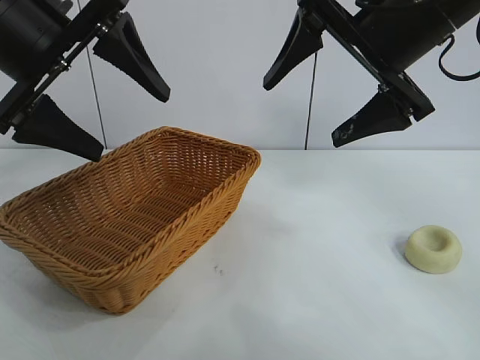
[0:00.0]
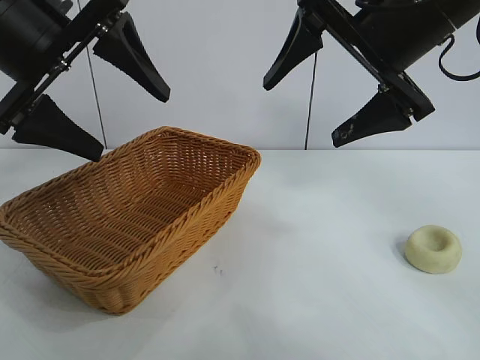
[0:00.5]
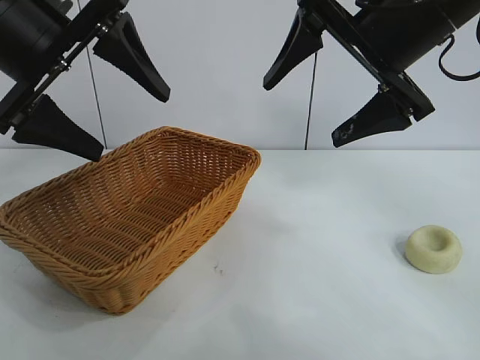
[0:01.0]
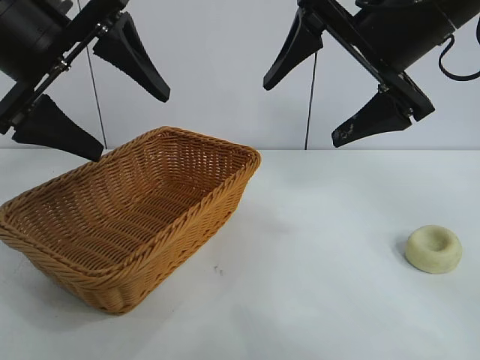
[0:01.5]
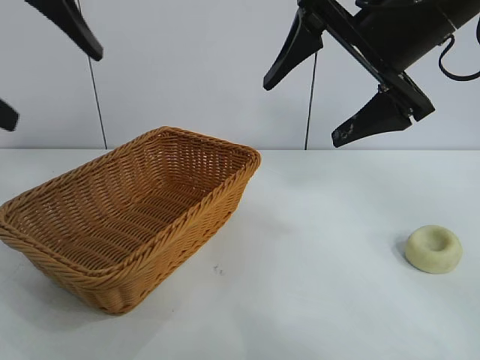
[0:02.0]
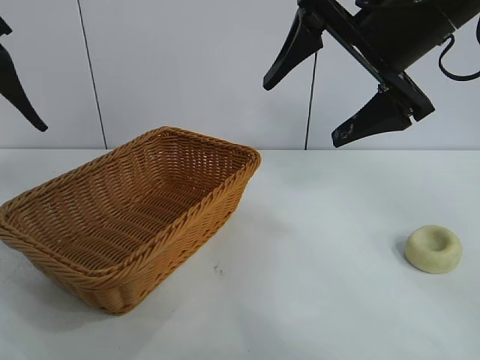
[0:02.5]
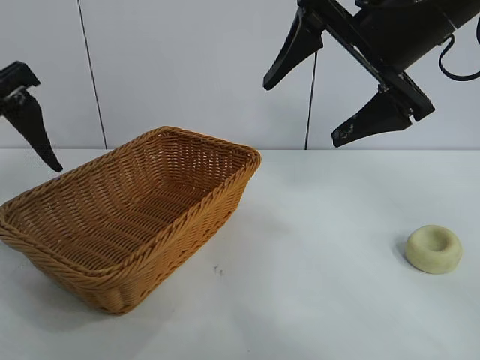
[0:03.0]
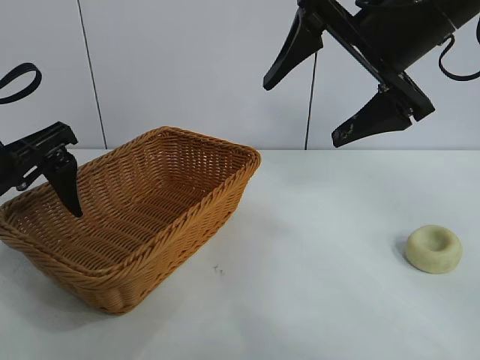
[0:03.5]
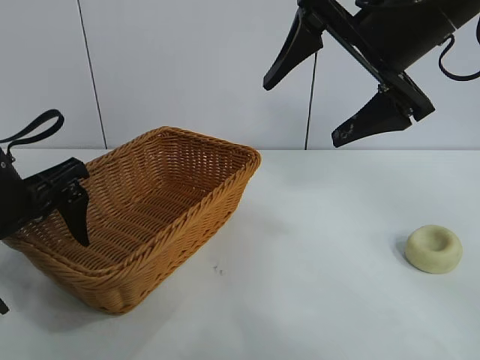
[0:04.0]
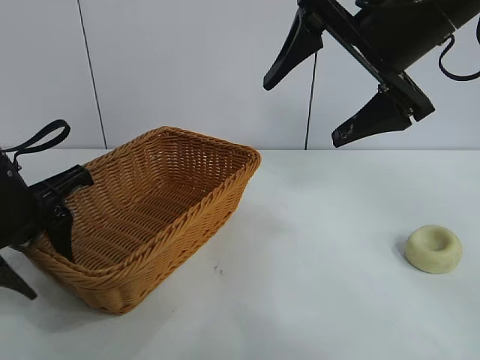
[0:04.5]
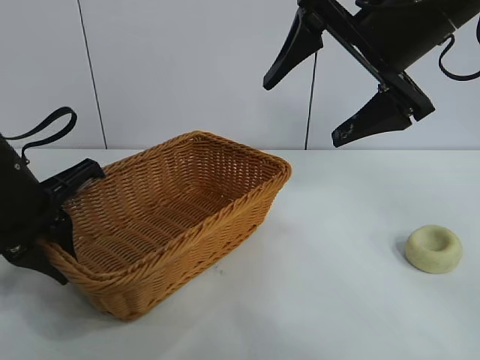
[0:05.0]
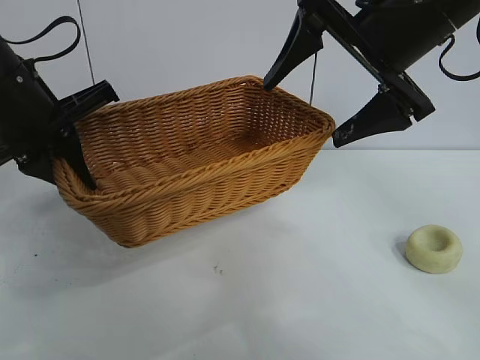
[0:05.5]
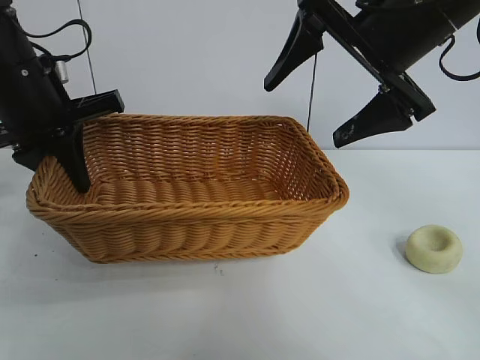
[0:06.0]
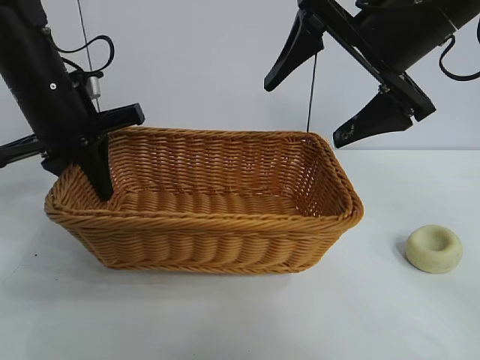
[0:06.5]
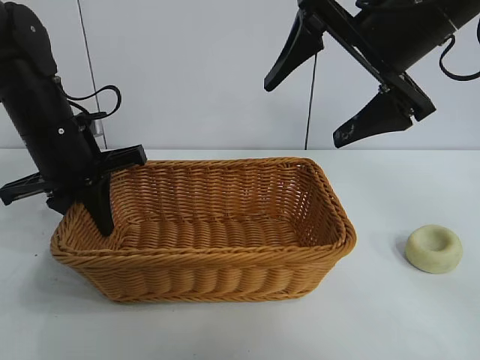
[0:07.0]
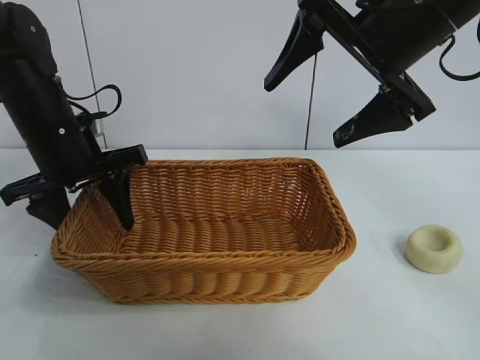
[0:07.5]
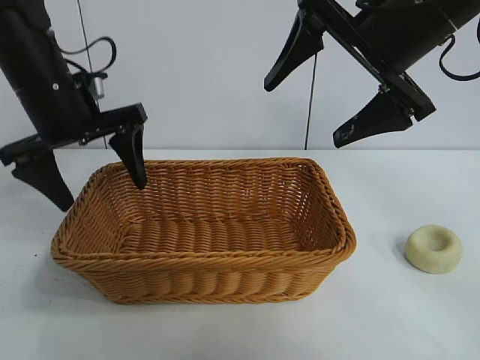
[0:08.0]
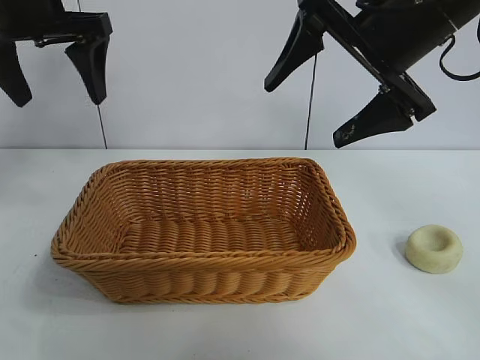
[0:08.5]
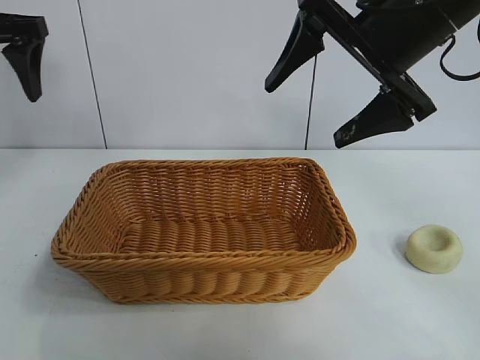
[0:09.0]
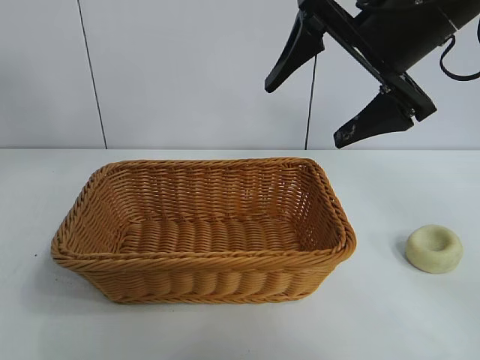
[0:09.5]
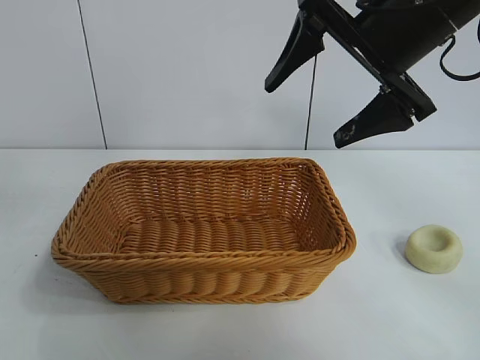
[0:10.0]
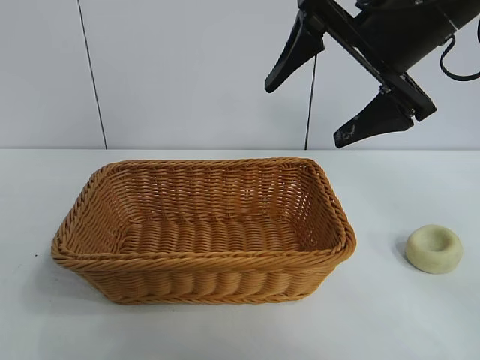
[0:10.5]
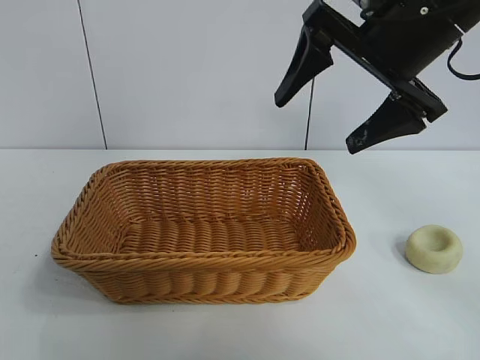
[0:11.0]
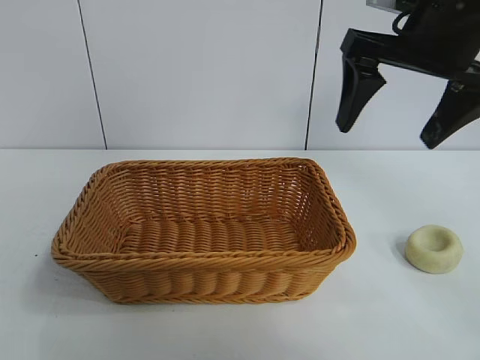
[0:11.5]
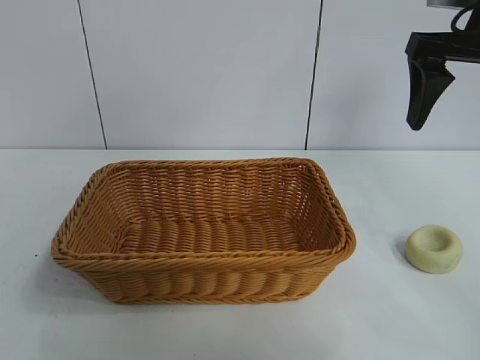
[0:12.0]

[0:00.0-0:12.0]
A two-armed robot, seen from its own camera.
Task of the whole recording: pick up the egg yolk pastry and put it into the basket.
Step, 0:02.0 to 0:04.5: Grasp the basket with left gripper.
Step, 0:05.0 to 0:07.5: Place the basket in the center of view with left gripper.

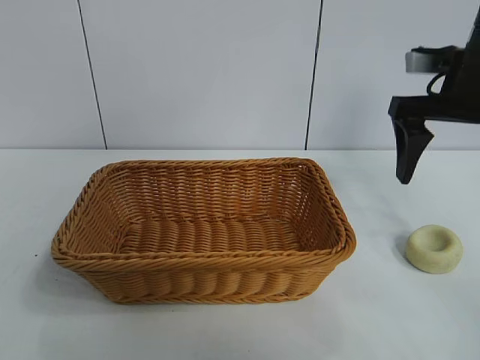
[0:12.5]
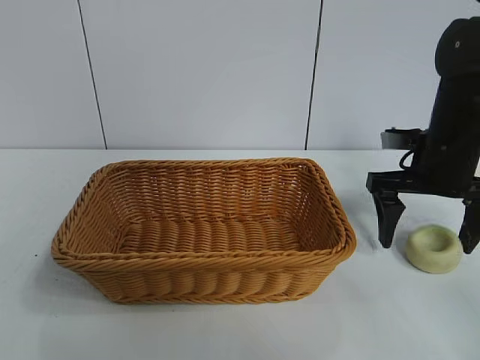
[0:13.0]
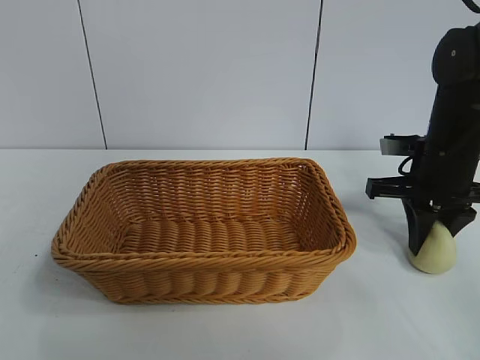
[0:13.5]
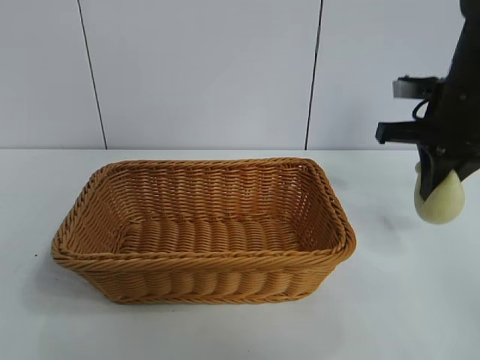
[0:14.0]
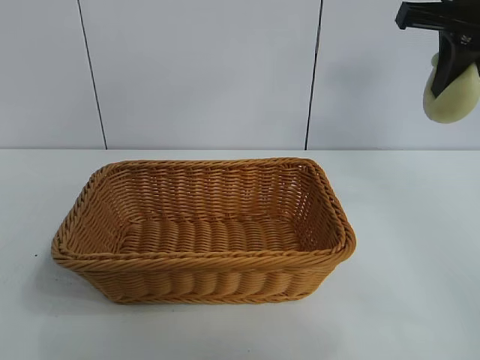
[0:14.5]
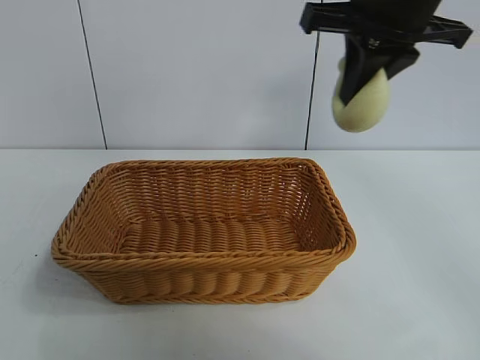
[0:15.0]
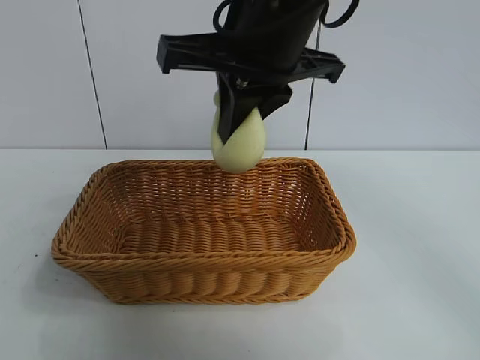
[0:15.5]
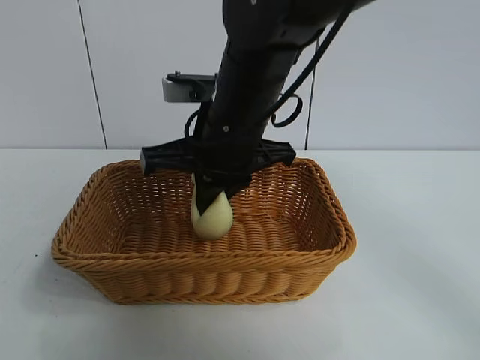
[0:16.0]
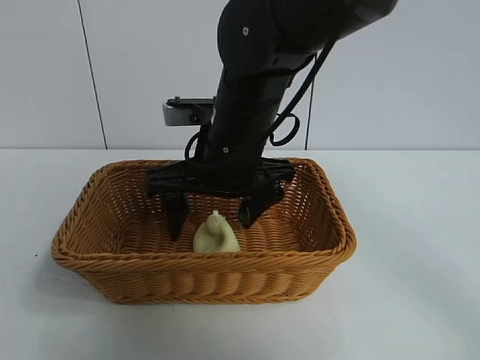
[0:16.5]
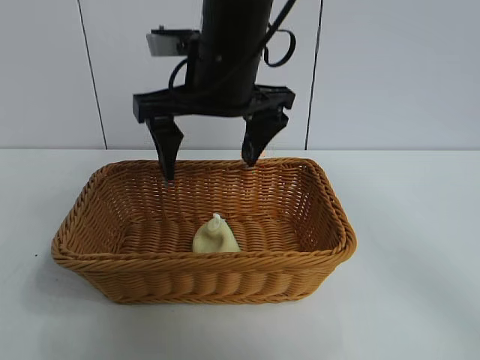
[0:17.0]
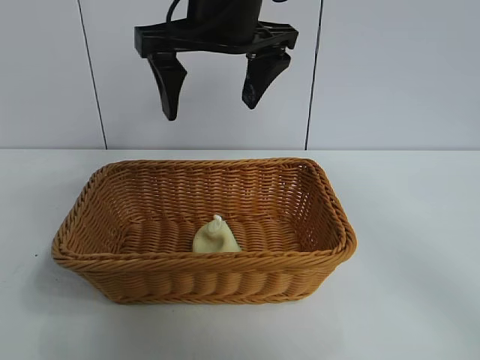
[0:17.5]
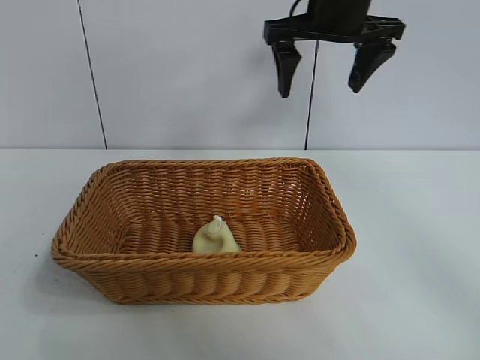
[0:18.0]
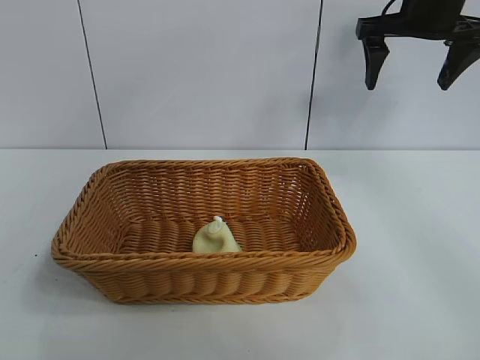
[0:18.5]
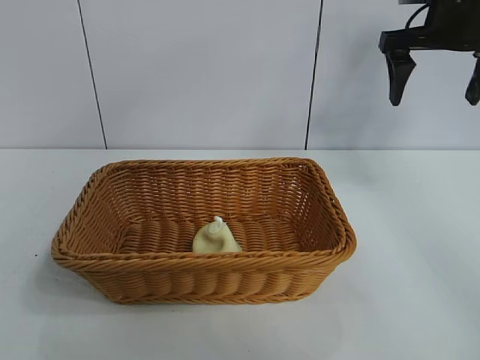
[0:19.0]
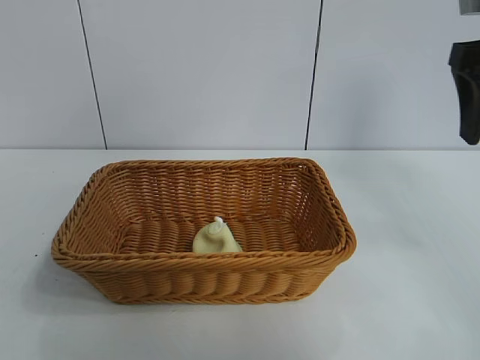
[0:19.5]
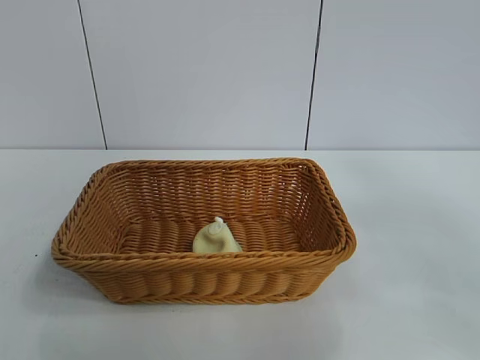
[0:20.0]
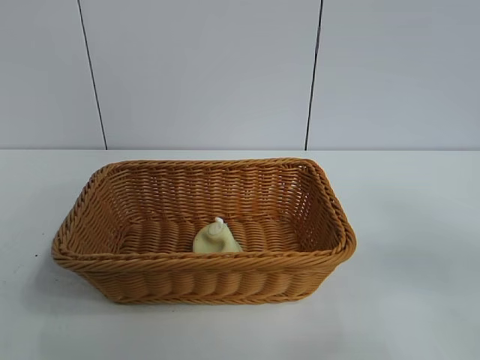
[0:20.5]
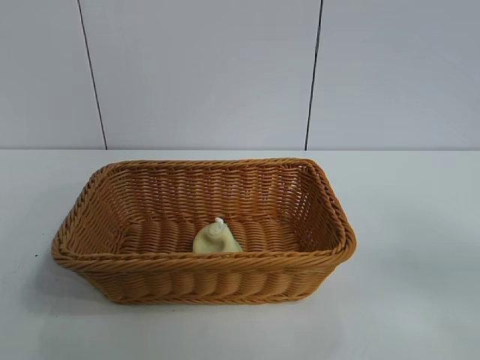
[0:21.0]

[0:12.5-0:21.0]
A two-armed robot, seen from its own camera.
Task of the whole recording: pick up the egg yolk pastry and put it into the basket.
Step, 0:14.0 to 0:16.0: Place the egg yolk pastry in the basket with right gripper.
